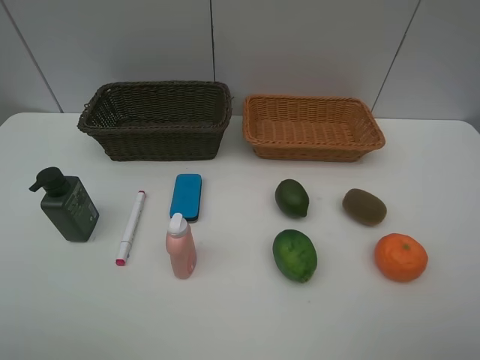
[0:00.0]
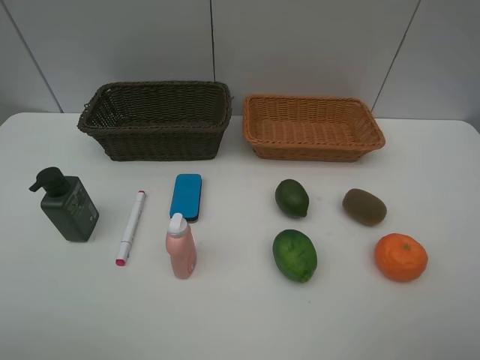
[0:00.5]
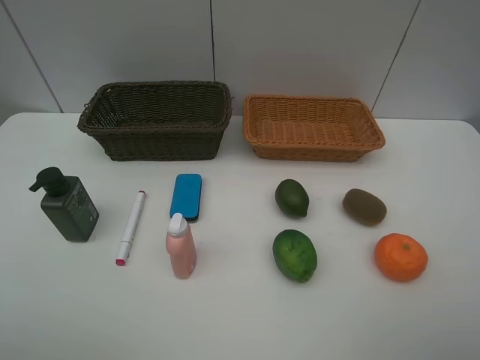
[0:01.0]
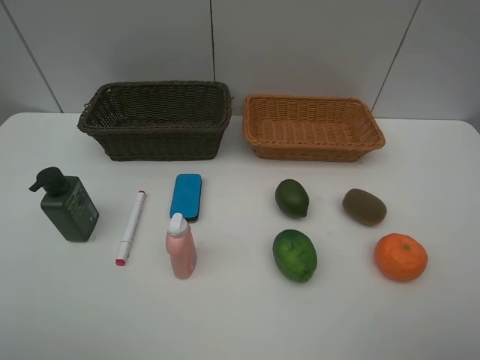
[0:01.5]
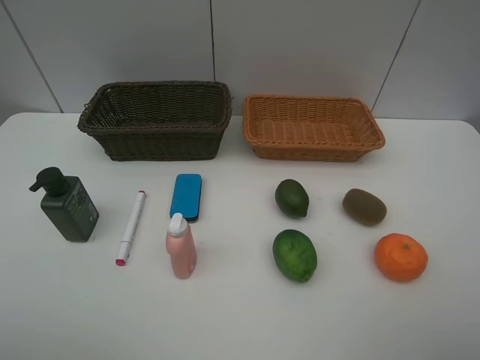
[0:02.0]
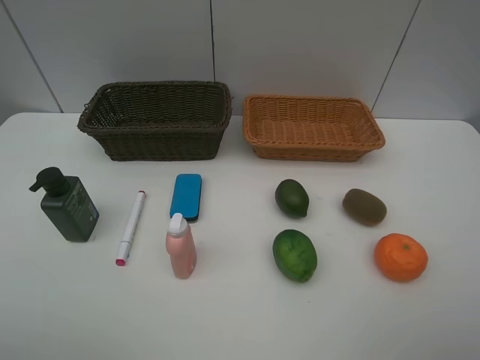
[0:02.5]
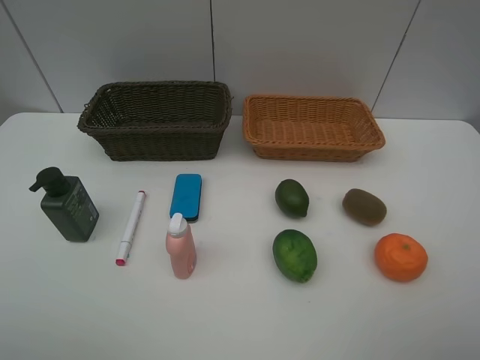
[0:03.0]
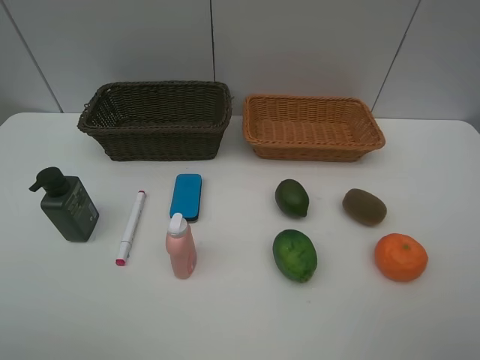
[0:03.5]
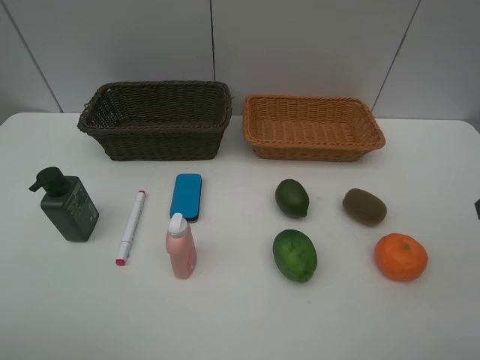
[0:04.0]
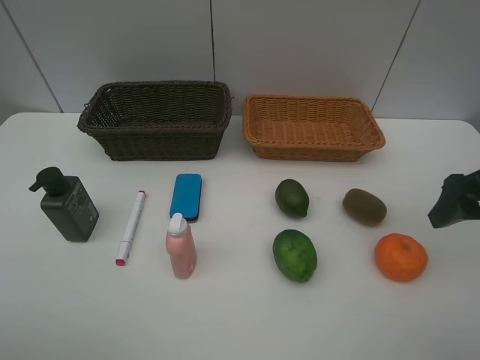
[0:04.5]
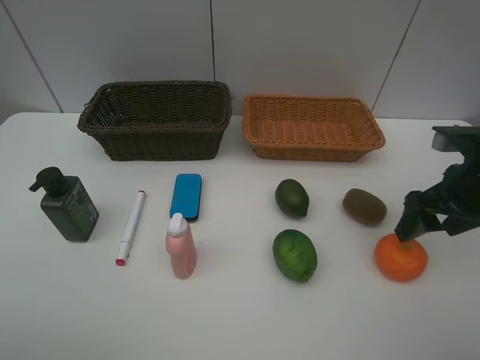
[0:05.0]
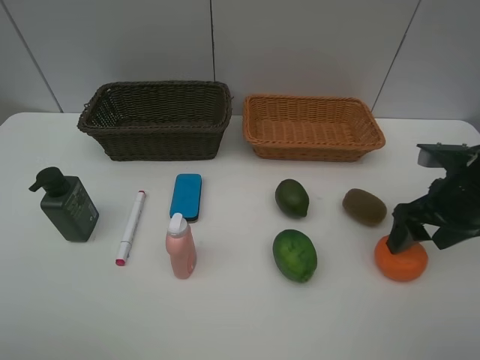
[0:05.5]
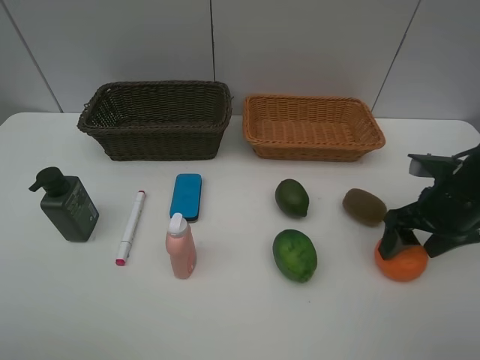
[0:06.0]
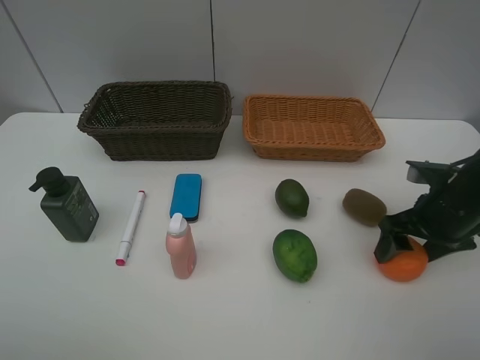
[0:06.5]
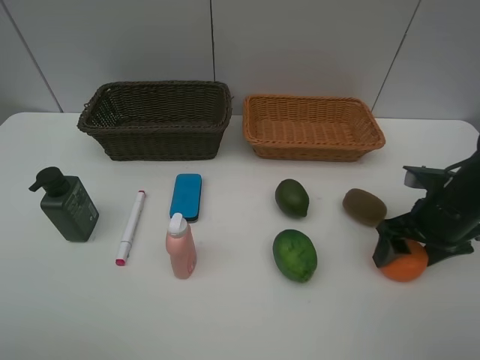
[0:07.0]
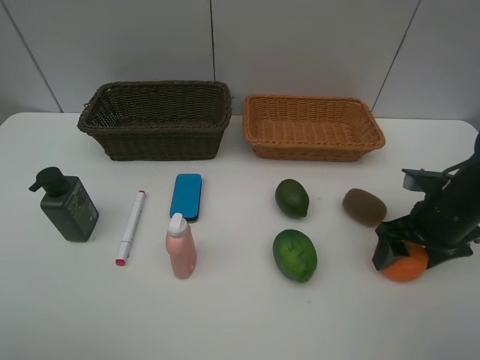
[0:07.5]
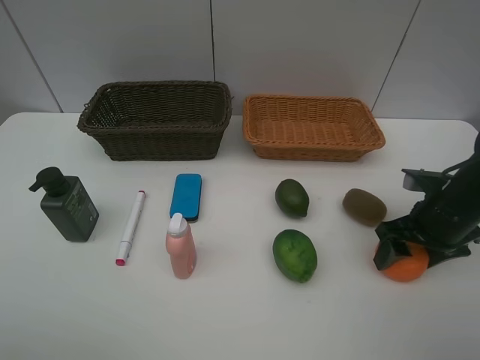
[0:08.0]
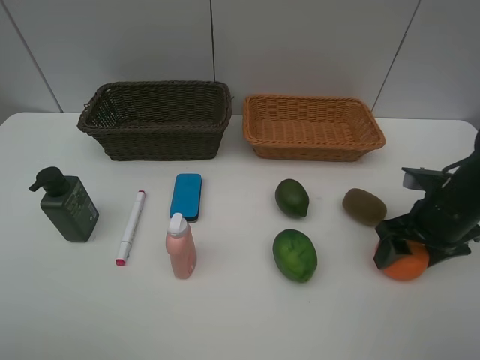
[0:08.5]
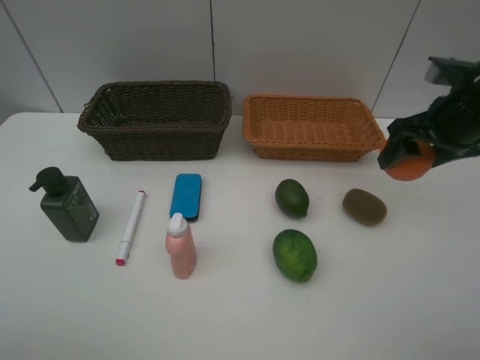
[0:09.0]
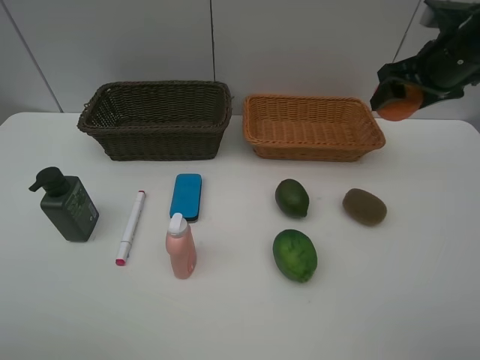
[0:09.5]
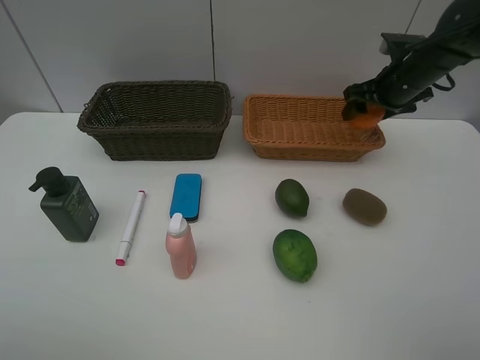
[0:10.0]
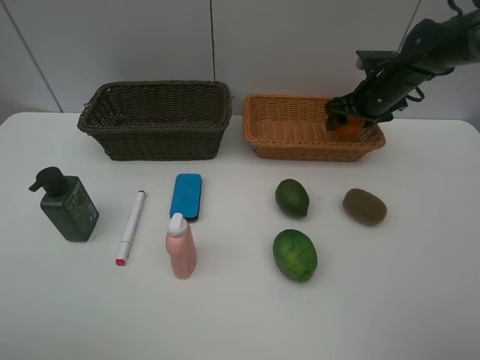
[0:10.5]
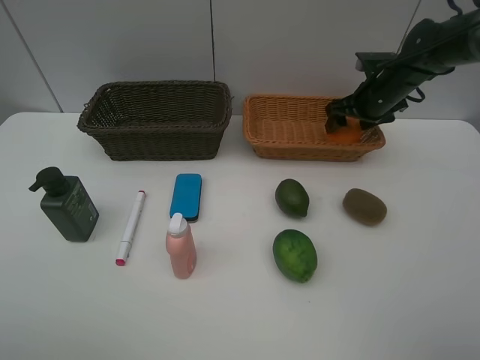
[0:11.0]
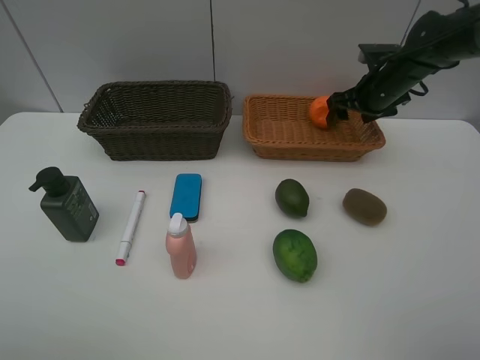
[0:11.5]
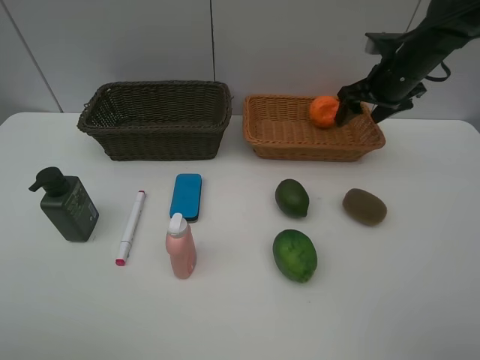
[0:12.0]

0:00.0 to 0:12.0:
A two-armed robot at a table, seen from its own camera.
Task of the whole recording: Place multiple objects separately in different baskets.
Step, 0:00.0 to 0:08.5: Pick up the orange with right gripper.
Step, 0:09.0 to 0:11.5: Place the orange in the light basket with right gripper.
0:00.0 to 0:02.0: Both grippers stay put.
0:04.0 to 0:06.0: The right gripper shifts roughly 15 cm downward and forward.
0:06.0 to 0:08.0: The grippers move only a little.
0:08.0 to 0:10.0: The right gripper goes approximately 20 cm forward.
0:10.0 to 0:12.0: The grippers make only small movements.

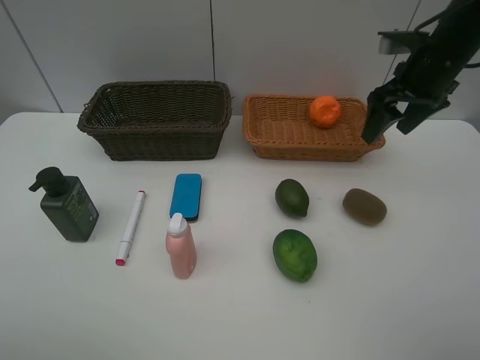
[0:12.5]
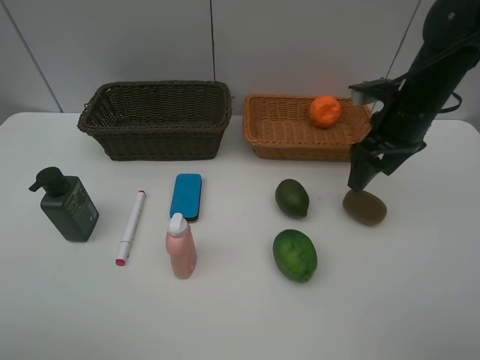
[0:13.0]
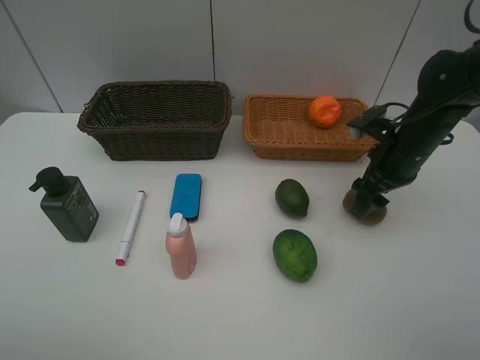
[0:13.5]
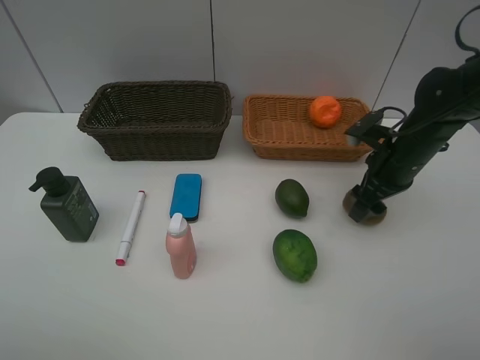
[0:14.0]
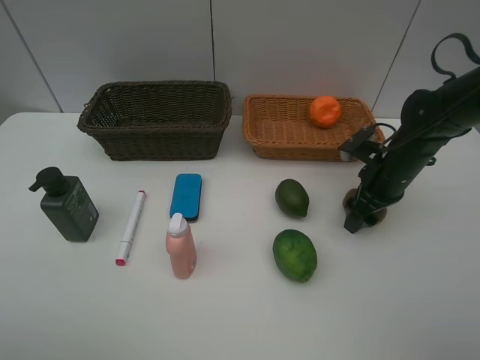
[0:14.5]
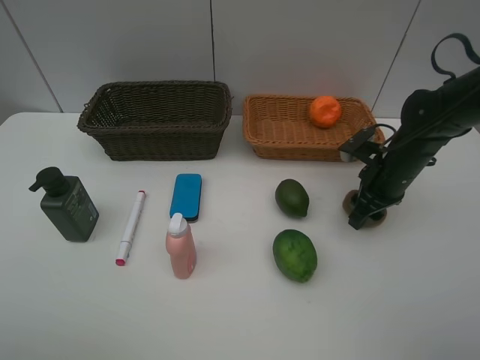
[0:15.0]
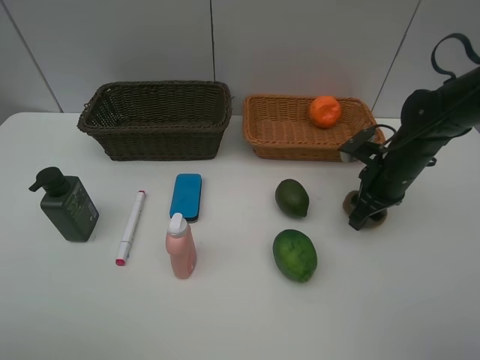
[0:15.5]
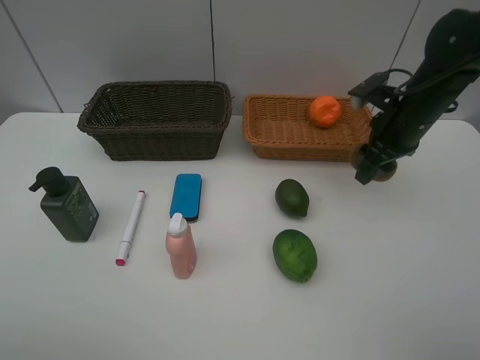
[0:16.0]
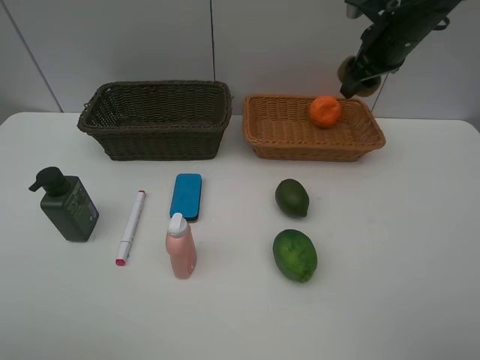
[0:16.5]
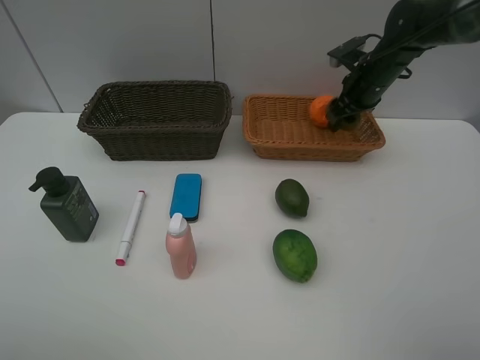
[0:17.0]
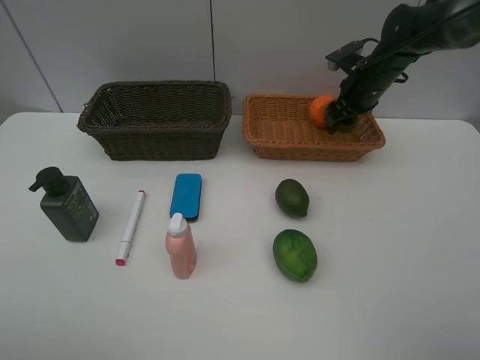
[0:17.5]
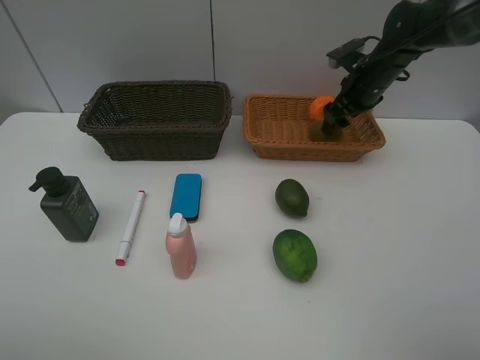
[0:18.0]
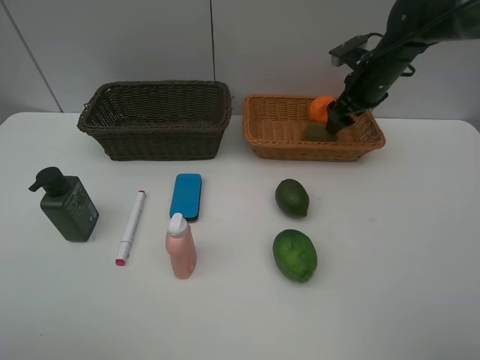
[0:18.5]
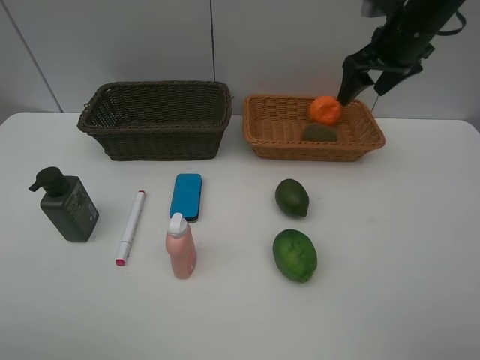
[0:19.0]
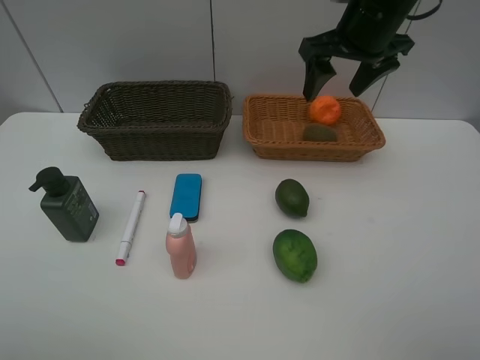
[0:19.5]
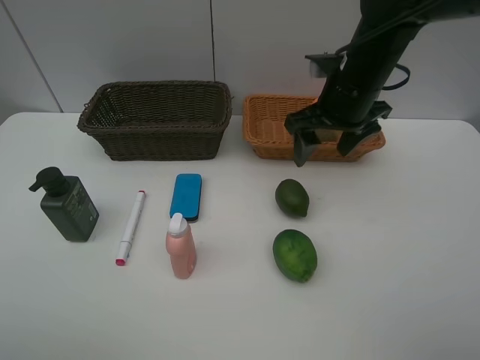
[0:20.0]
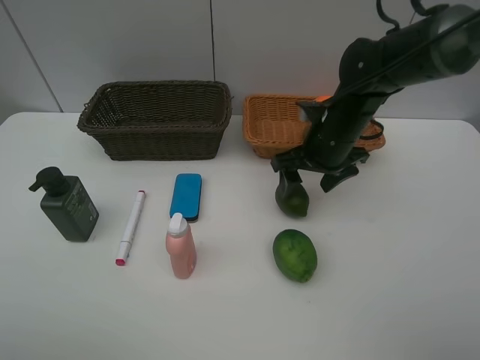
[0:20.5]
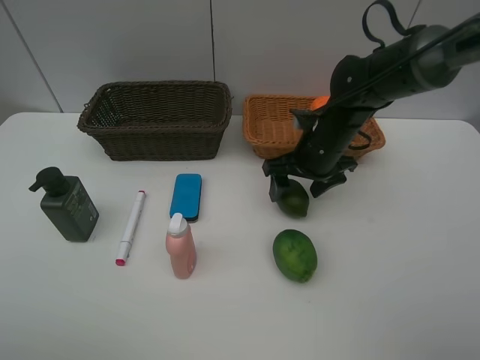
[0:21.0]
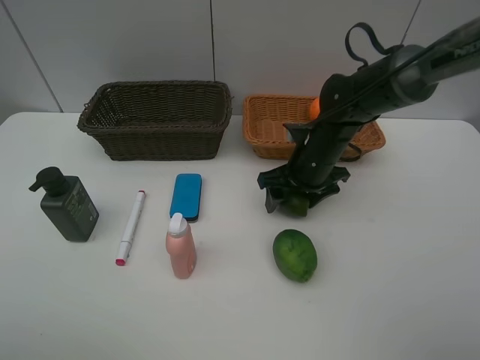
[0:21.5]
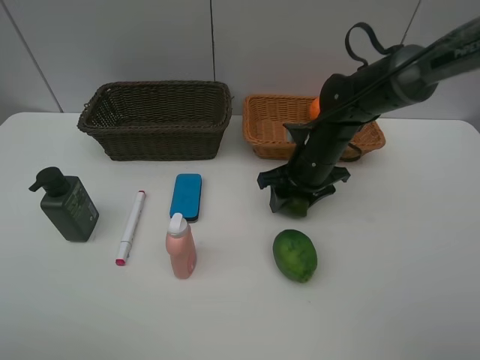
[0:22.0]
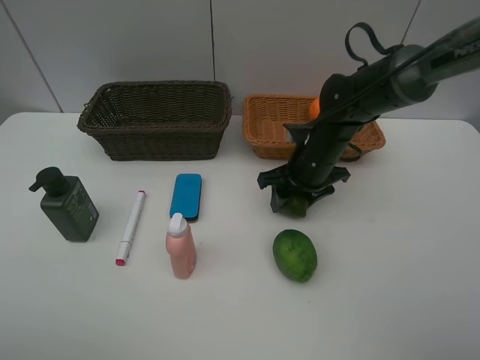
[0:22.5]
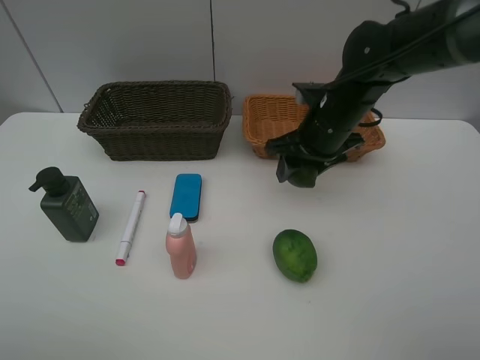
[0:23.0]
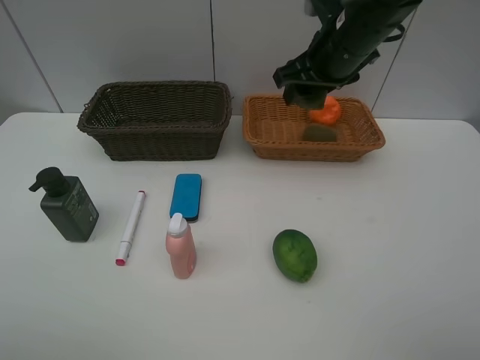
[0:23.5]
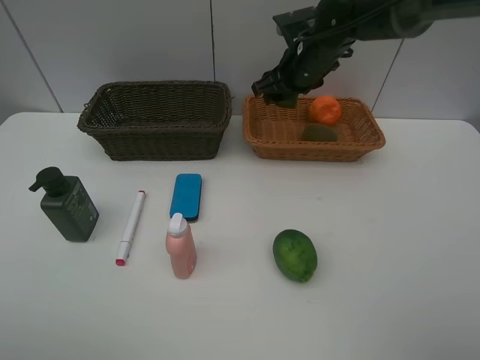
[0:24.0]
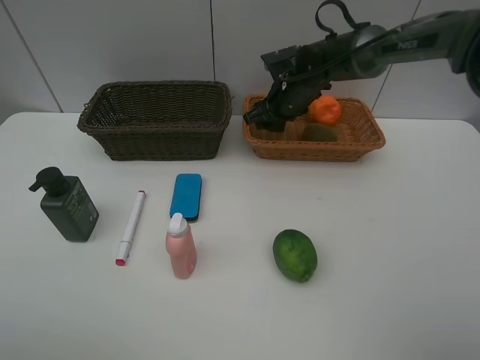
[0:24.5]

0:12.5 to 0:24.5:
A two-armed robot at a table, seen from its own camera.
Task of the whole recording: Place multiple objects separately in different baskets.
Step, 0:12.5 to 0:15.5: Pick up kiwi with right gripper.
Step, 0:16.0 to 0:18.5: Place the kiwi in the light basket with right gripper.
Step, 0:19.0 to 0:22.5: Pick up the lime with right gripper.
0:12.5 to 0:14.5: The right gripper goes roughly 15 cm downward.
0:14.5 to 0:16.5: The right gripper shifts about 20 cm upward and forward, and closes.
0:16.5 to 0:18.5: The right gripper moves downward, some 5 cm, and opens its fingers.
0:18.5 to 0:20.5: The right gripper travels backward and to the left by approximately 15 cm, and goes upward and returns, some 10 cm each way.
0:20.5 to 0:22.5: The right gripper closes.
0:22.5 to 0:24.5: The right gripper is displaced forward by some 10 cm, and reaches roughly 15 cm upward, then returns.

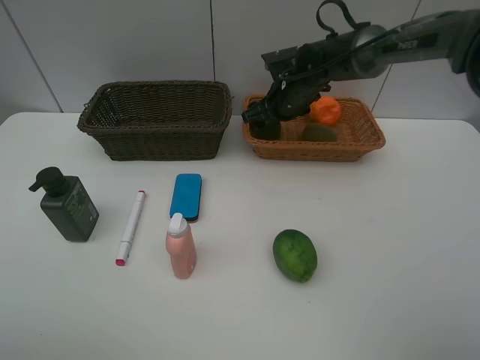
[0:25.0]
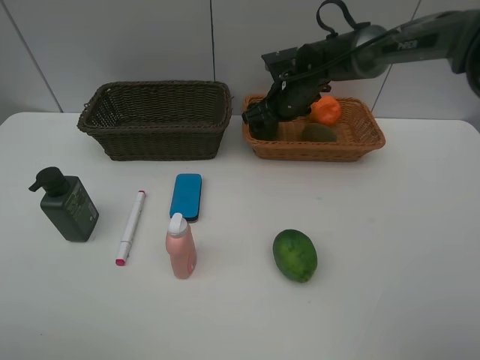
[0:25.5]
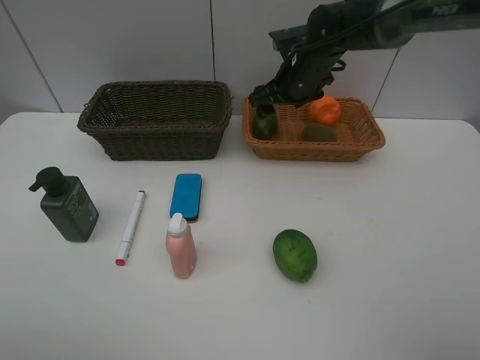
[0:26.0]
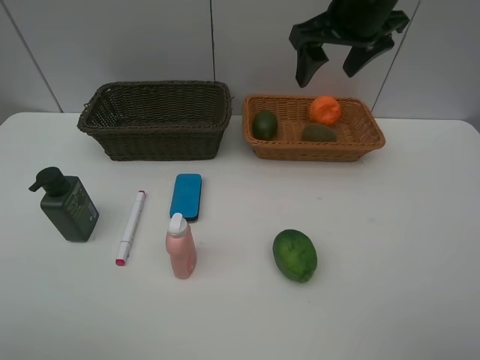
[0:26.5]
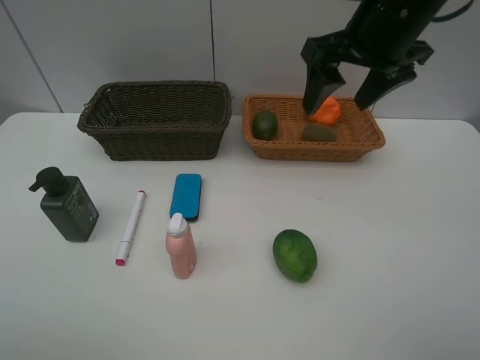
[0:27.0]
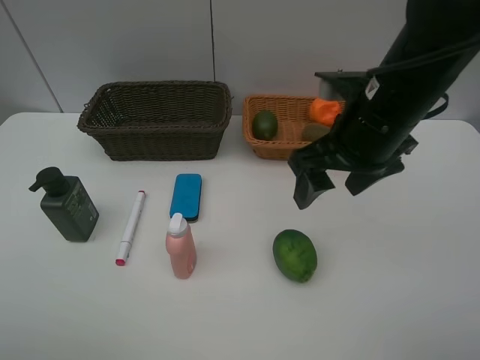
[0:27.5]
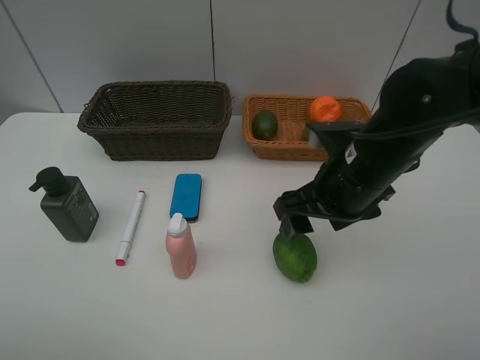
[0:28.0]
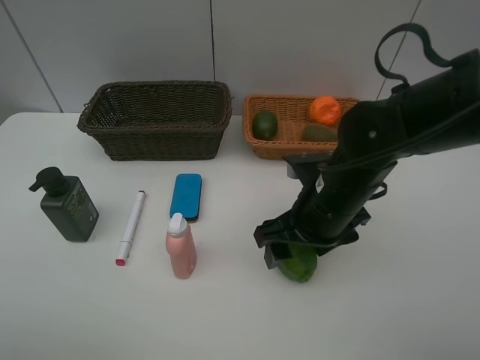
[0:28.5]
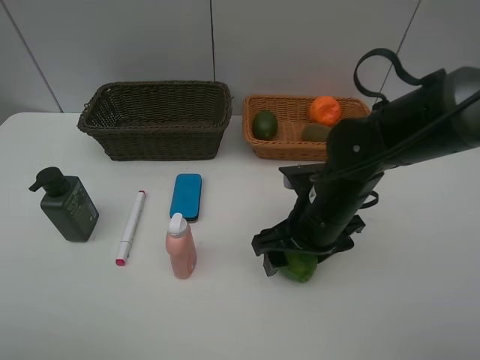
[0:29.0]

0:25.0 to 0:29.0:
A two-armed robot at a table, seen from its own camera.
Task of the whole recording: Place multiple objects separately in different baskets.
0:25.0 to 0:27.0: The right gripper is displaced upward and backward by about 25 cm.
0:27.0 to 0:29.0: The right gripper is displaced downward by about 20 cm.
